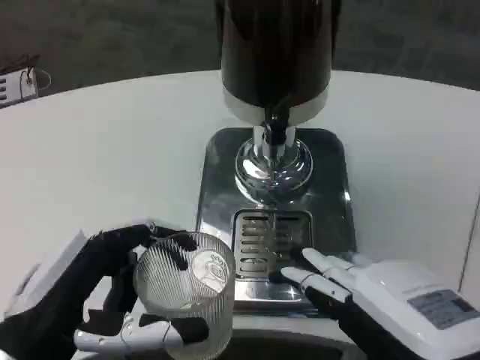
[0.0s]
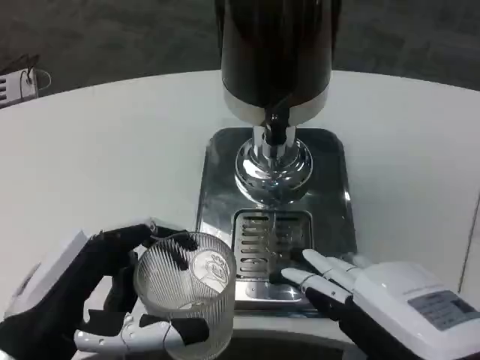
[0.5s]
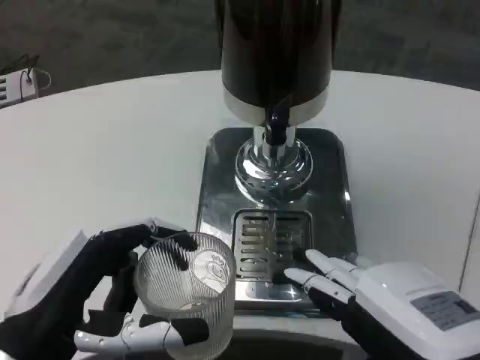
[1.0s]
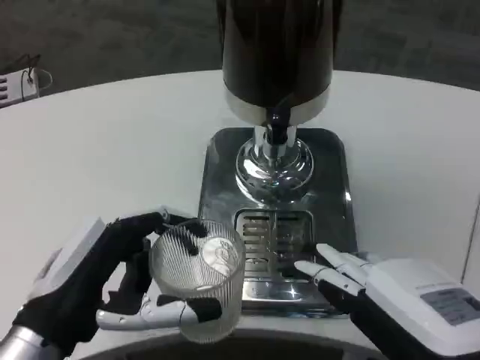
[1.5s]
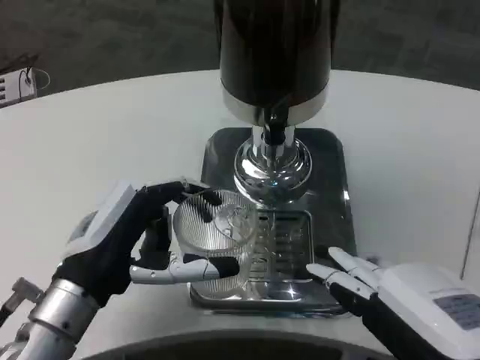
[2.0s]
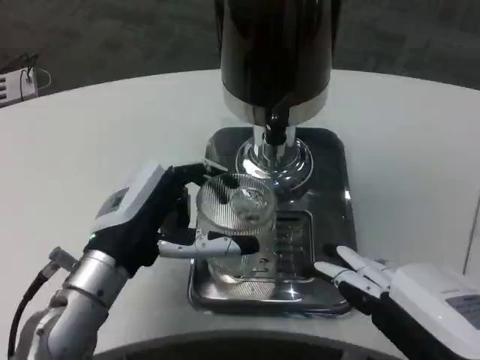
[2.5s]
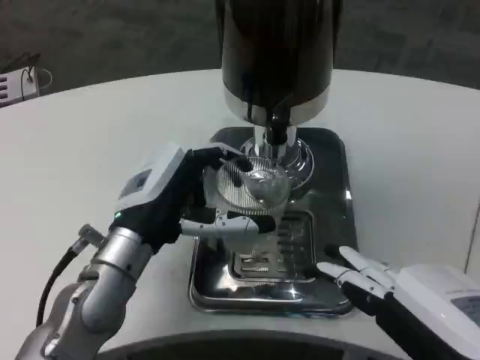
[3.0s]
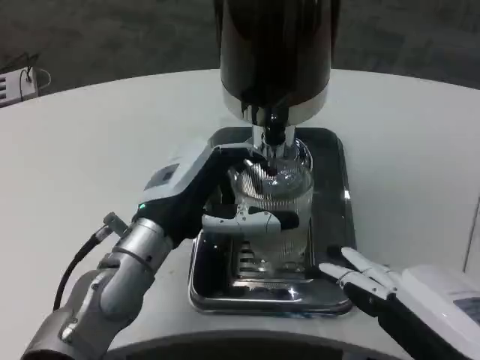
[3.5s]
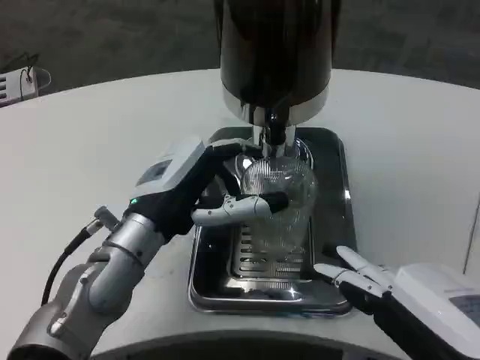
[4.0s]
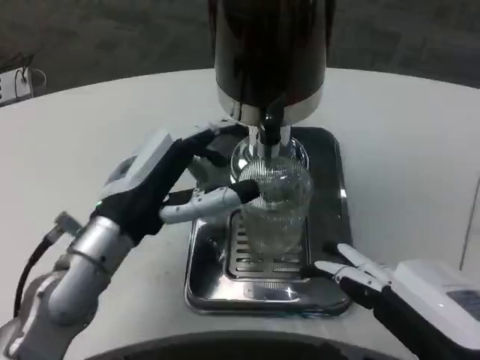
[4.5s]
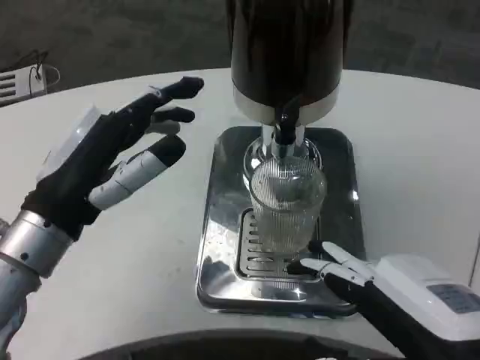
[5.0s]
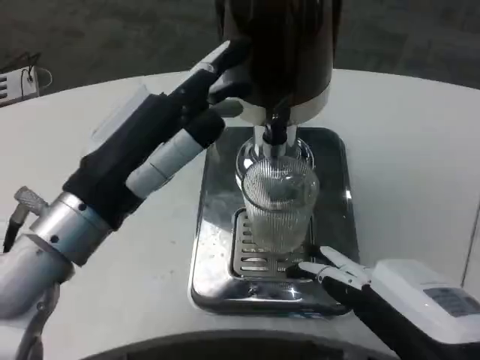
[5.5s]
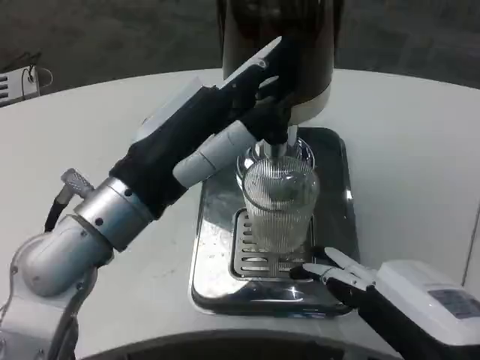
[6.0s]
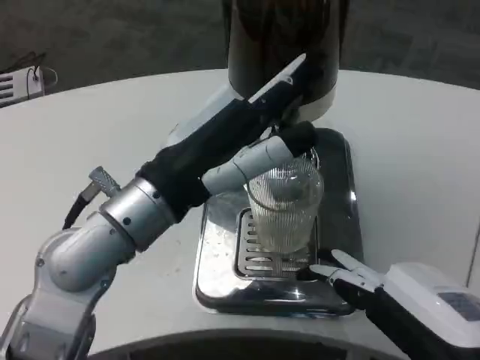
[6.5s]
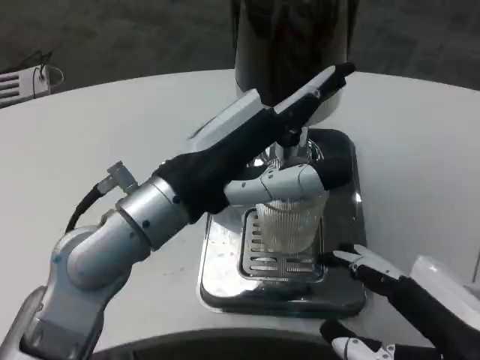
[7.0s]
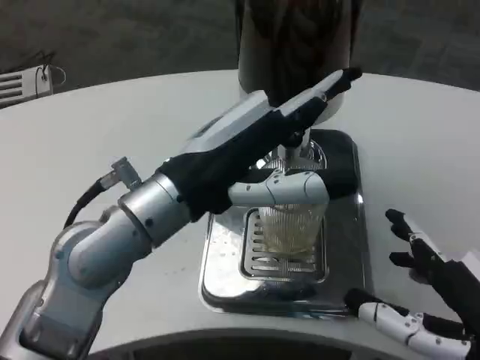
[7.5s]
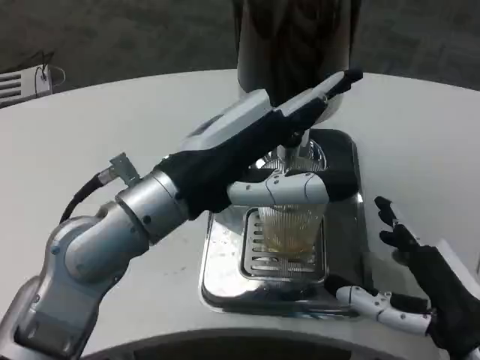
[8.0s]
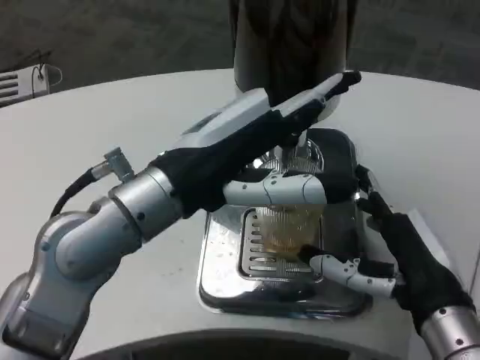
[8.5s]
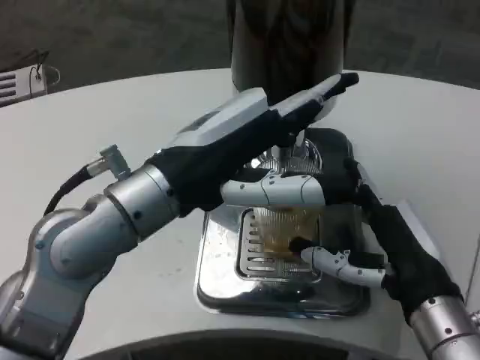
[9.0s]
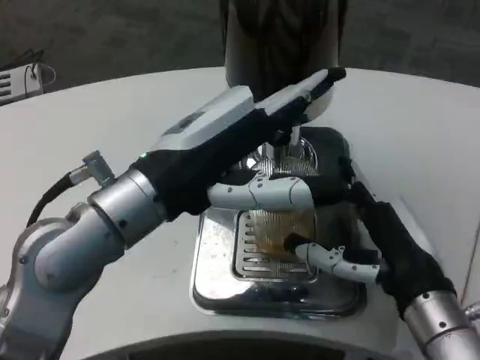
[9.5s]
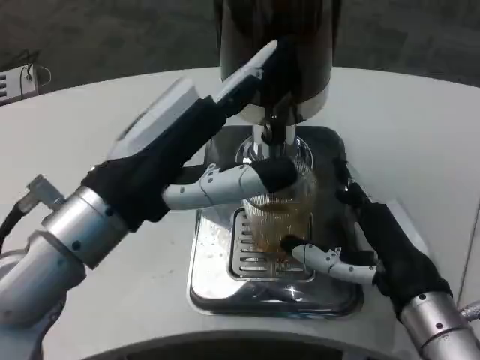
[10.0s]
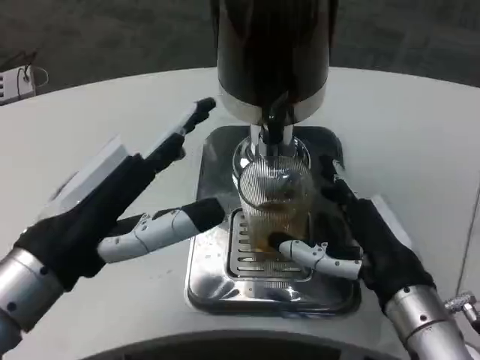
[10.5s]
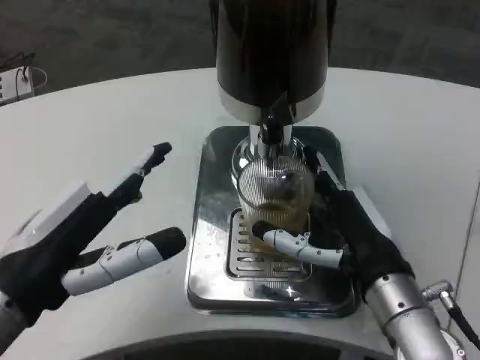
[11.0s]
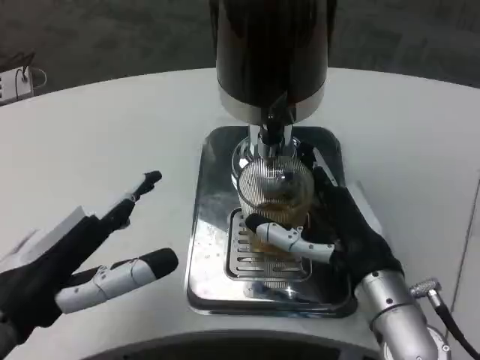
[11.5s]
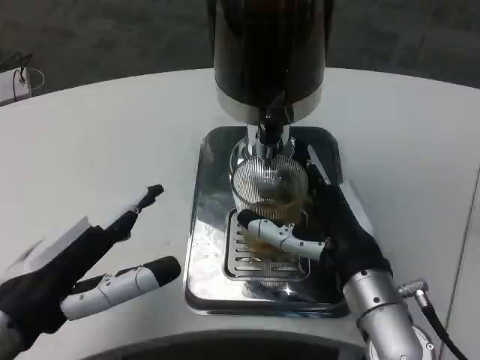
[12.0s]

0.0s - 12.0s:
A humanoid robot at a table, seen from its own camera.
Task of the whole recording: Grasp the cup under the faucet to collect the drink, then remove the cup.
0.0s - 2.0s: The left hand heads forward, covering roughly 10 cm.
2.0s - 4.0s: The left hand is displaced forward by roughly 5 cm.
4.0s - 6.0s: The left hand moves upward and backward, approximately 10 cm.
6.0s - 8.0s: The right hand goes roughly 10 cm forward and downward.
8.0s - 10.0s: The left hand shifts by about 5 cm. Meanwhile the right hand shifts by about 5 cm.
10.0s - 12.0s: The left hand moves to the left and downward, approximately 10 cm. Meanwhile the right hand ends up roughly 5 cm from where it was.

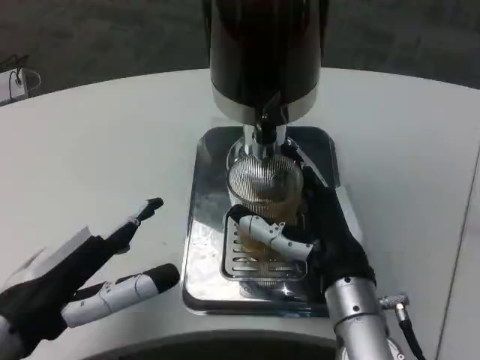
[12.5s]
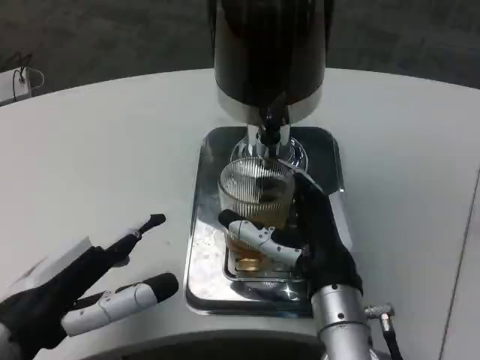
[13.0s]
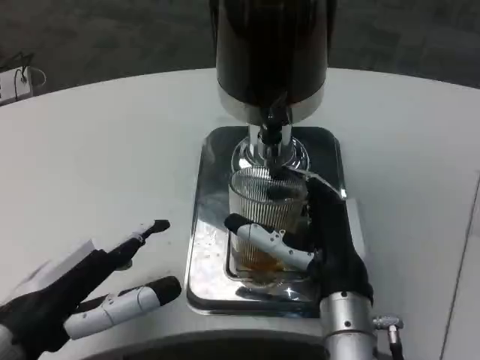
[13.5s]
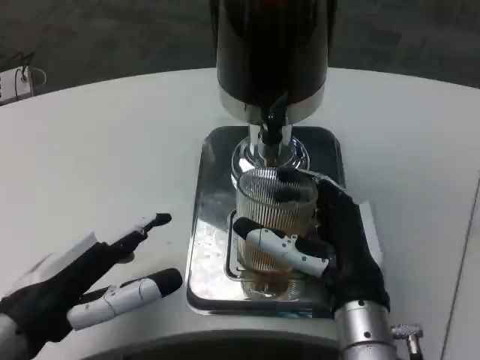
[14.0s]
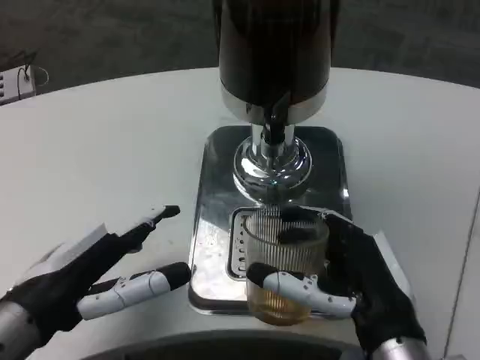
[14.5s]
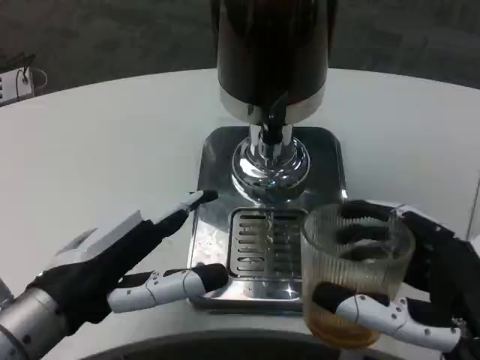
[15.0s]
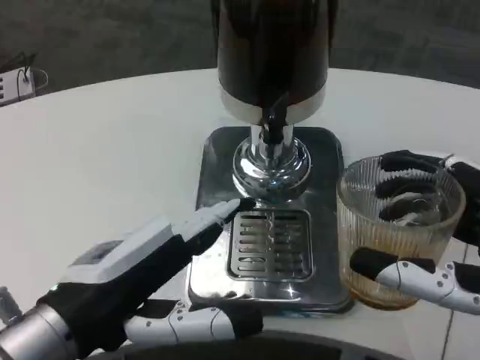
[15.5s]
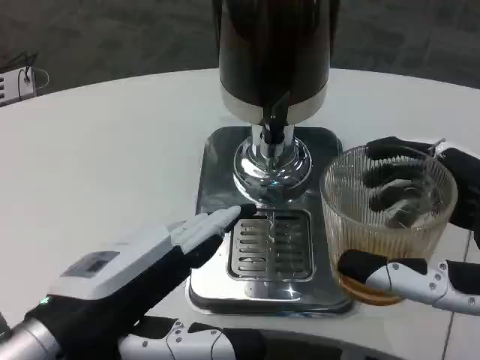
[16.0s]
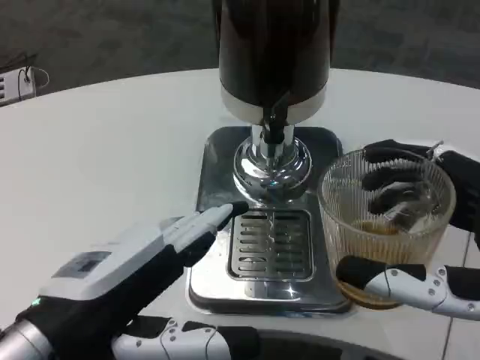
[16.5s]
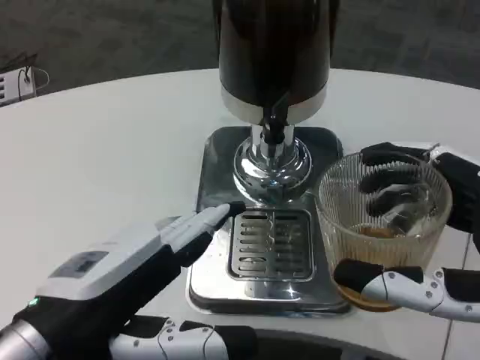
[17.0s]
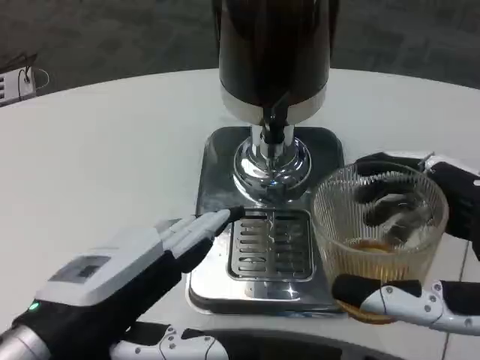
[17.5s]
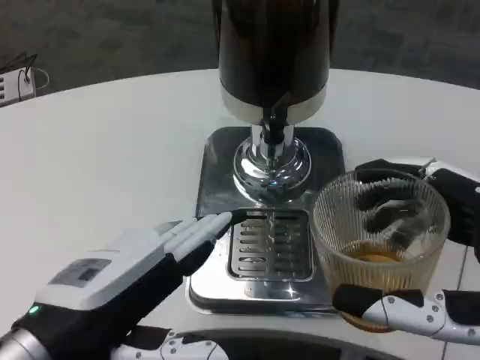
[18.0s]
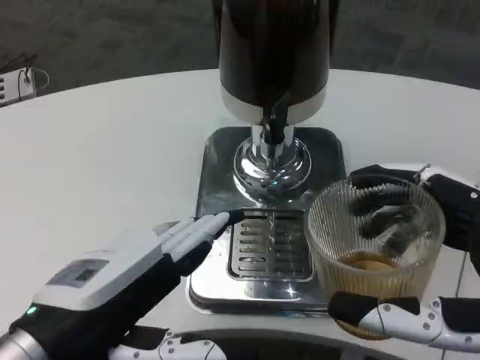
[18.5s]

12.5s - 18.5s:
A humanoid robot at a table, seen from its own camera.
Task of the whole recording: Grasp the cup under the faucet to collect the drink, then remove the cup.
12.5s - 14.5s: The right hand shifts roughly 5 cm backward.
14.5s - 16.5s: The left hand heads backward, covering roughly 5 cm. Meanwhile the right hand shifts some 10 cm backward, to the right and upward.
16.5s - 18.5s: The hands move only a little.

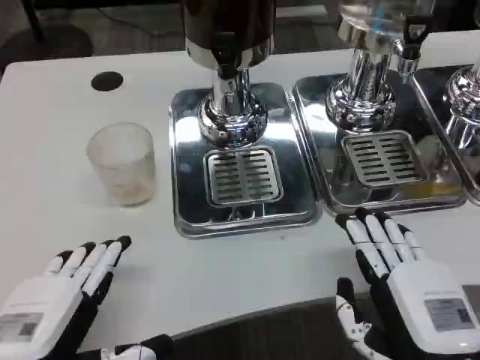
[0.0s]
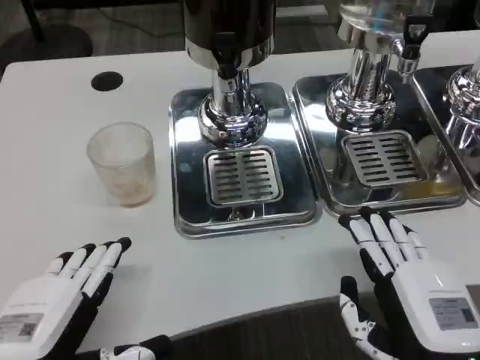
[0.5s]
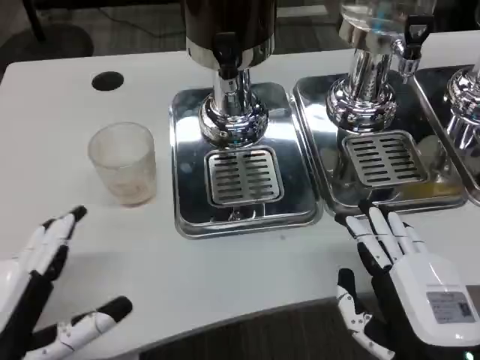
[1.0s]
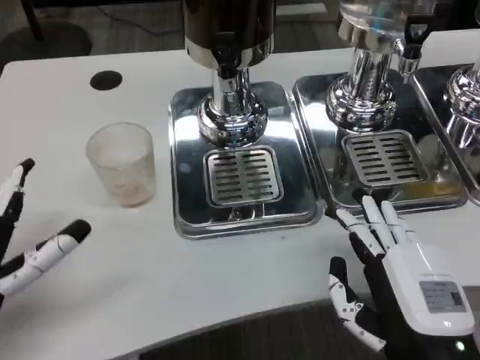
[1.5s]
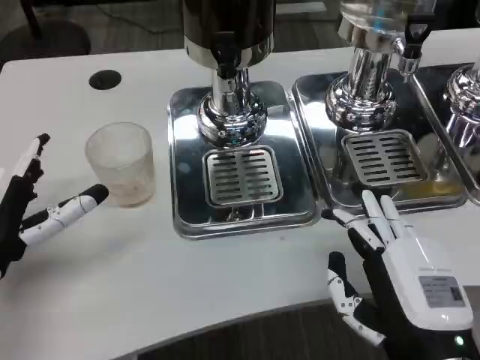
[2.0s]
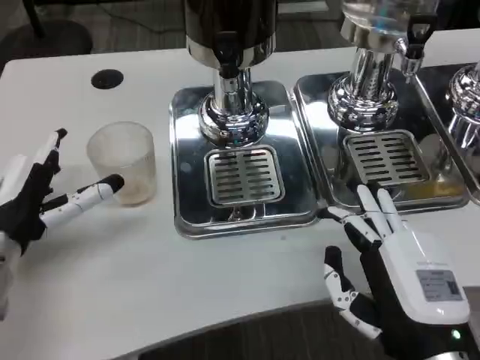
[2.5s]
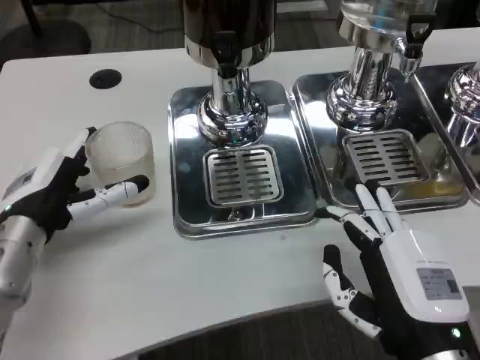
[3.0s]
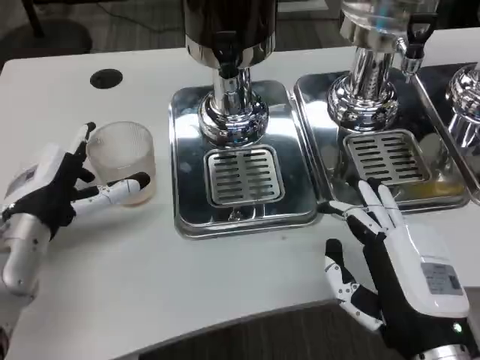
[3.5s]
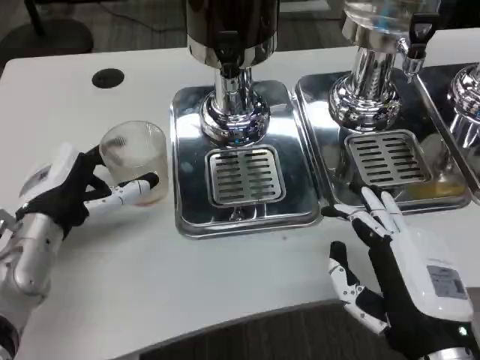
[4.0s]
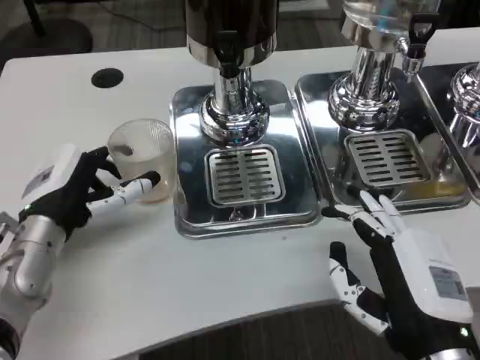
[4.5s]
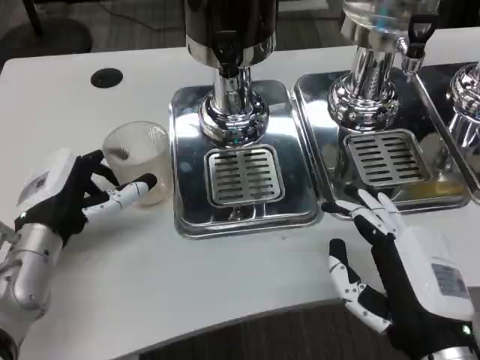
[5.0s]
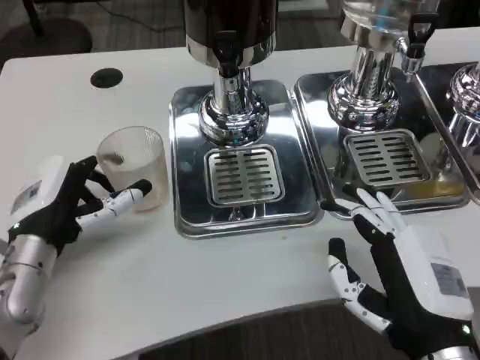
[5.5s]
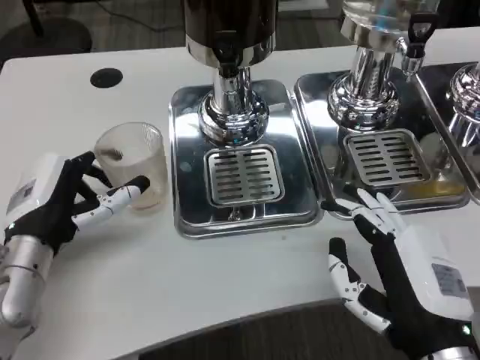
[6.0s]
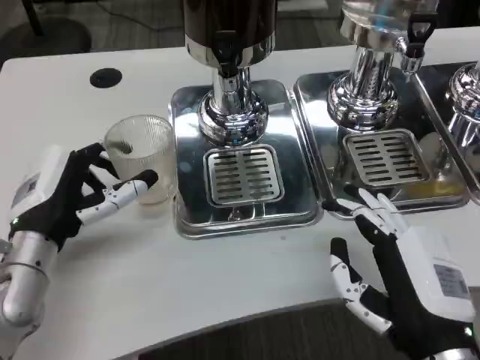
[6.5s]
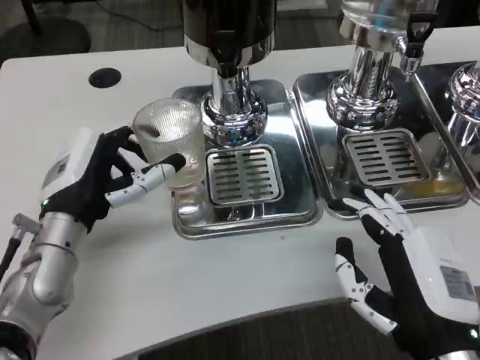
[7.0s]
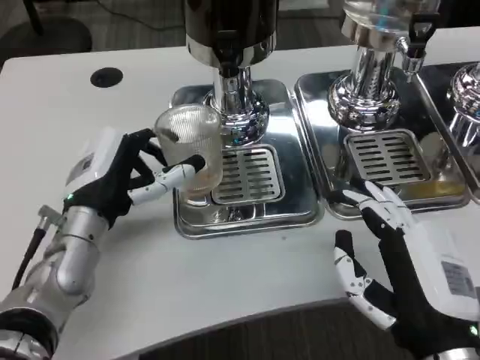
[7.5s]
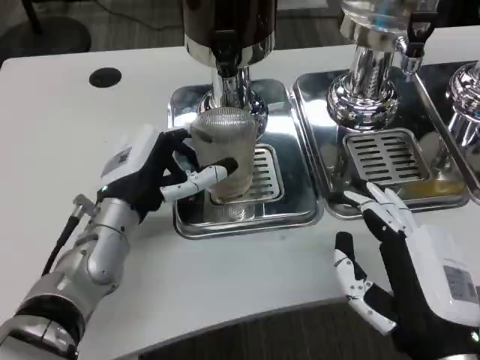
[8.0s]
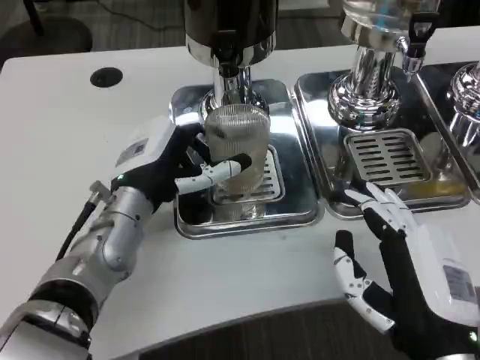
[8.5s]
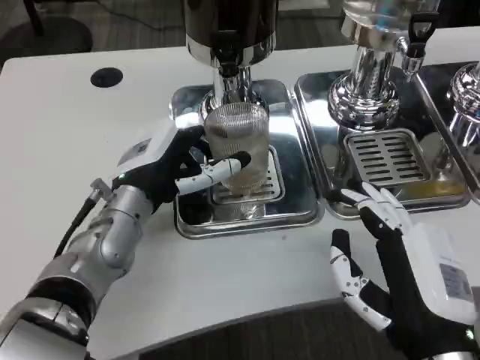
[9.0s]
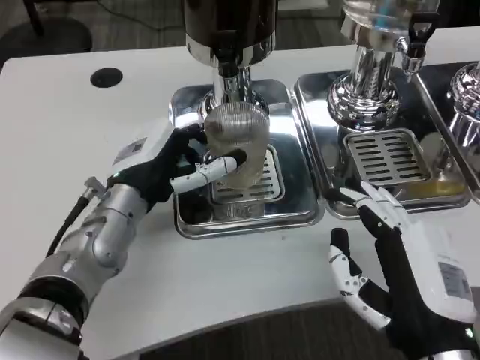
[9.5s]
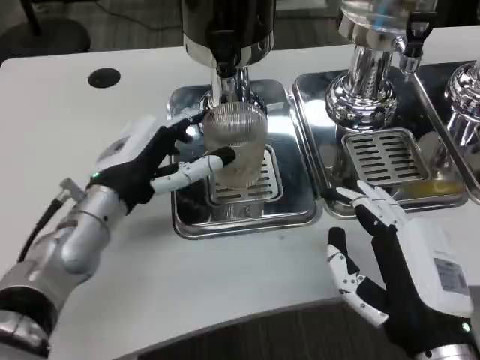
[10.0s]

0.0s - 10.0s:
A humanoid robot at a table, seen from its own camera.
Task of the whole recording: Grasp the cup under the faucet to collect the drink, then remove the cup.
0.0s - 2.0s: The left hand goes about 10 cm forward.
2.0s - 4.0s: The left hand heads forward, covering roughly 5 cm.
4.0s - 6.0s: The hands make only small movements.
6.0s - 8.0s: The left hand moves to the right, approximately 10 cm.
8.0s - 10.0s: There are only small adjustments of the hands.
